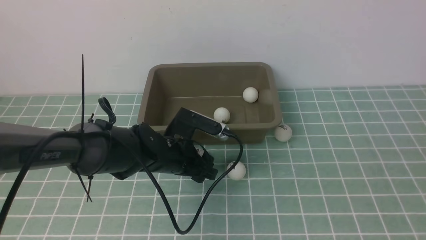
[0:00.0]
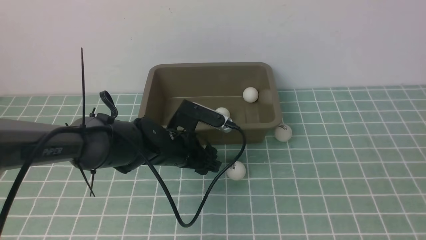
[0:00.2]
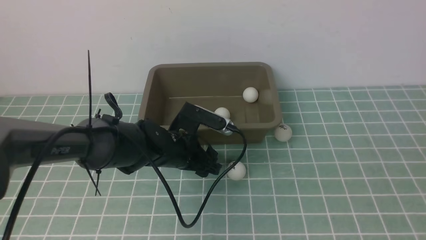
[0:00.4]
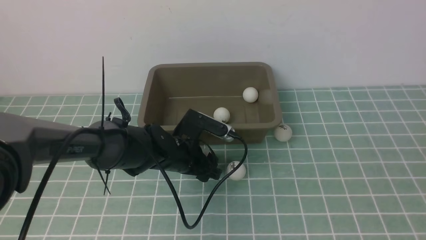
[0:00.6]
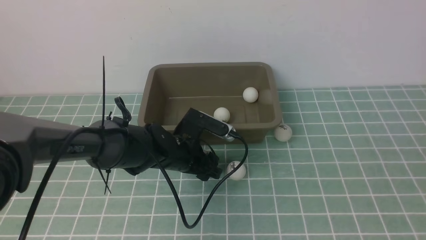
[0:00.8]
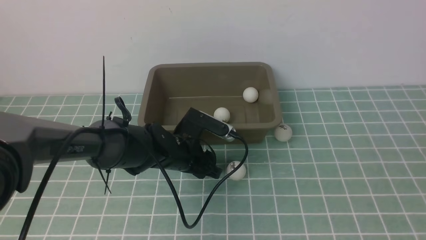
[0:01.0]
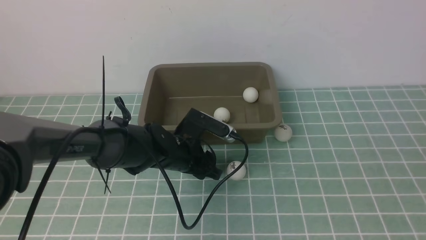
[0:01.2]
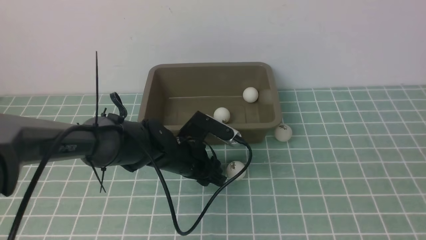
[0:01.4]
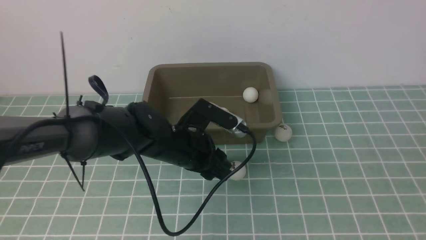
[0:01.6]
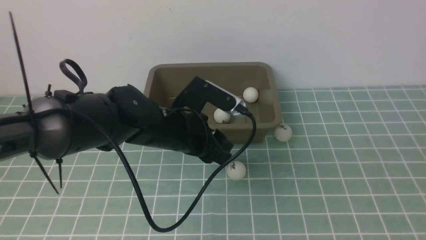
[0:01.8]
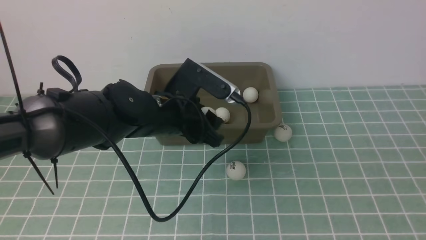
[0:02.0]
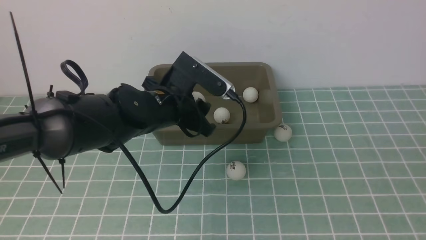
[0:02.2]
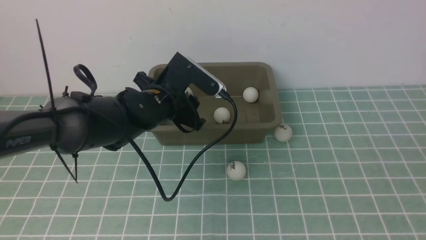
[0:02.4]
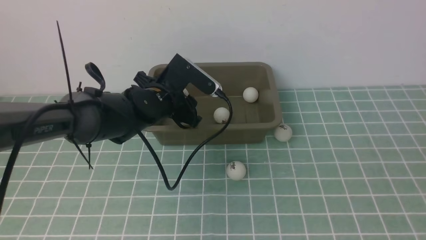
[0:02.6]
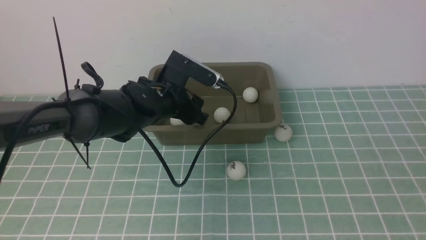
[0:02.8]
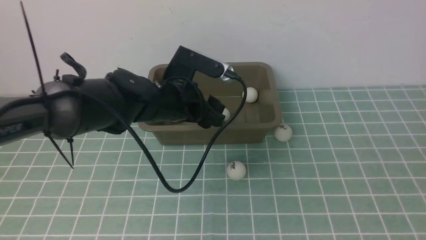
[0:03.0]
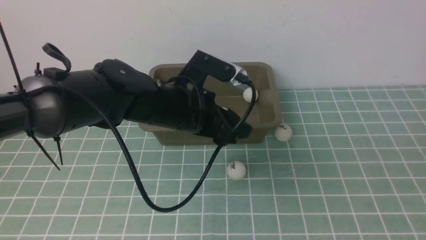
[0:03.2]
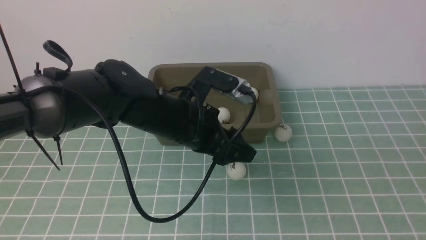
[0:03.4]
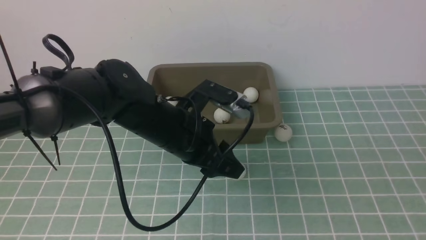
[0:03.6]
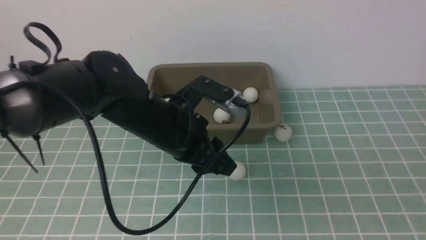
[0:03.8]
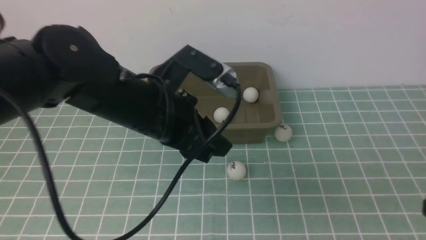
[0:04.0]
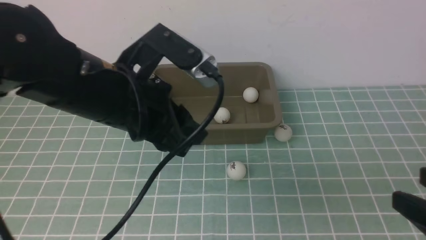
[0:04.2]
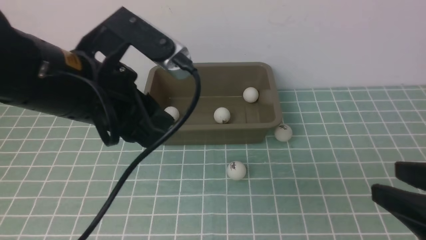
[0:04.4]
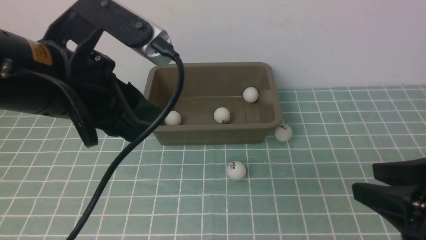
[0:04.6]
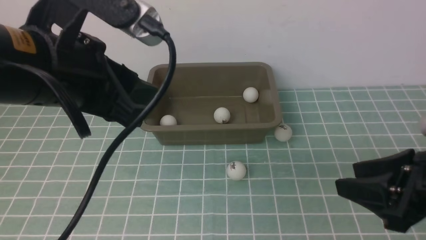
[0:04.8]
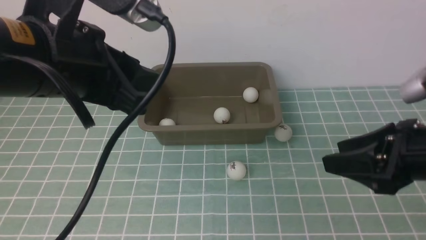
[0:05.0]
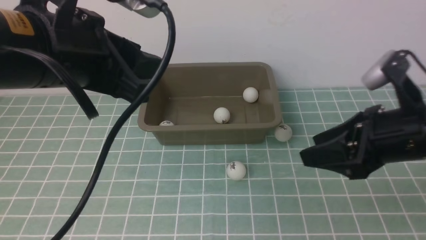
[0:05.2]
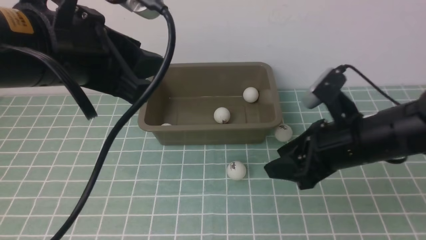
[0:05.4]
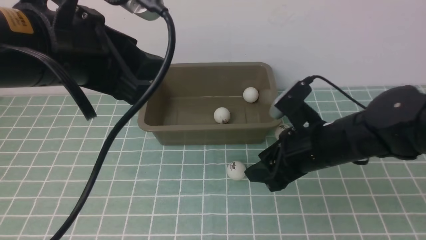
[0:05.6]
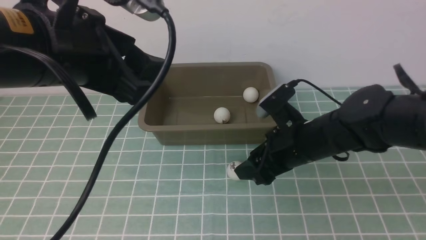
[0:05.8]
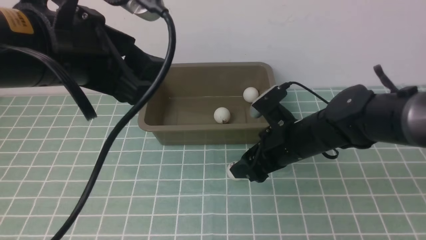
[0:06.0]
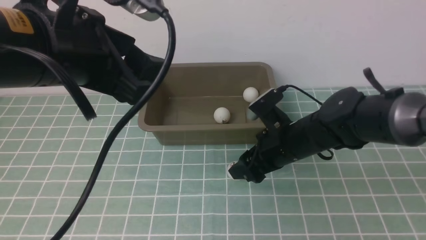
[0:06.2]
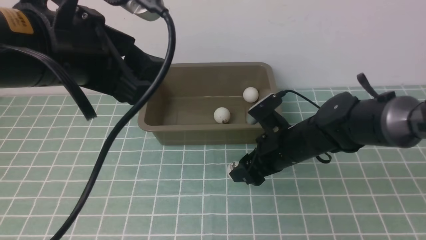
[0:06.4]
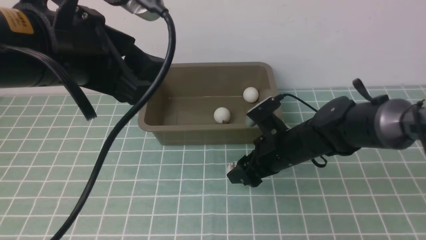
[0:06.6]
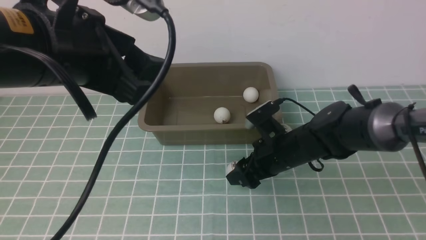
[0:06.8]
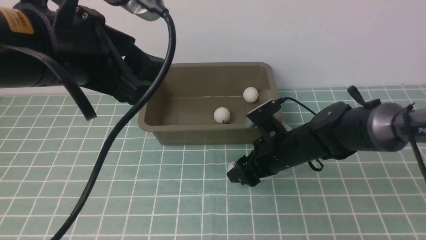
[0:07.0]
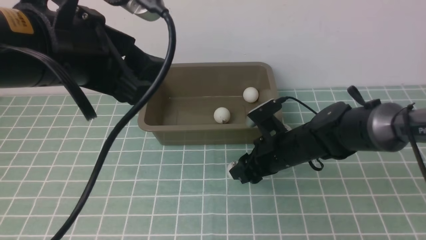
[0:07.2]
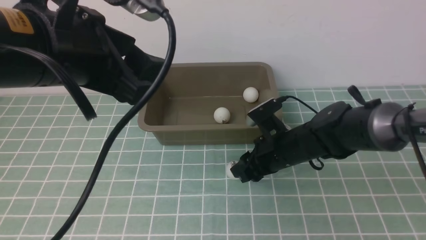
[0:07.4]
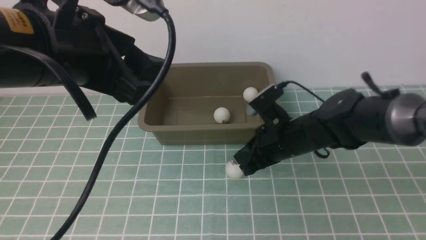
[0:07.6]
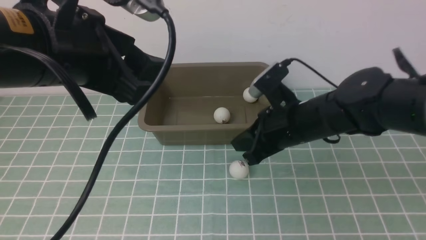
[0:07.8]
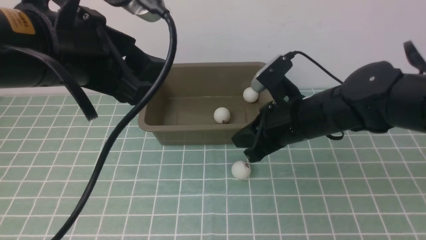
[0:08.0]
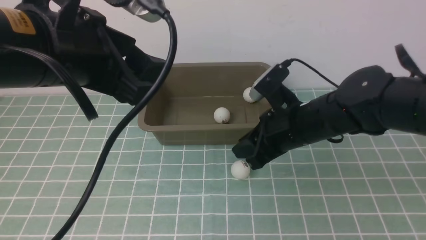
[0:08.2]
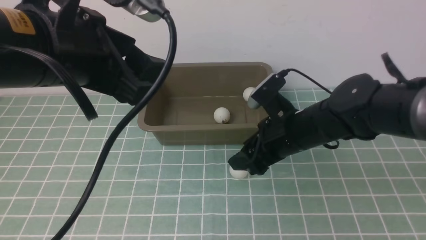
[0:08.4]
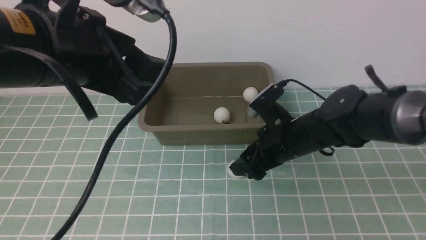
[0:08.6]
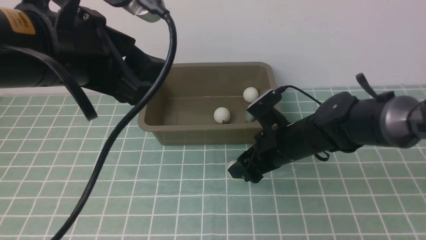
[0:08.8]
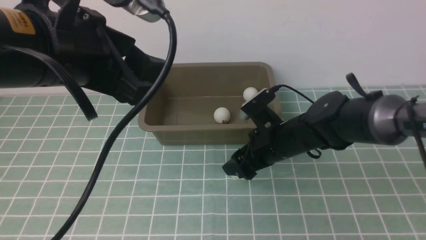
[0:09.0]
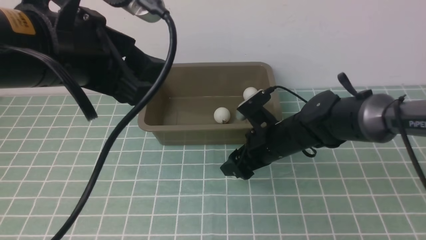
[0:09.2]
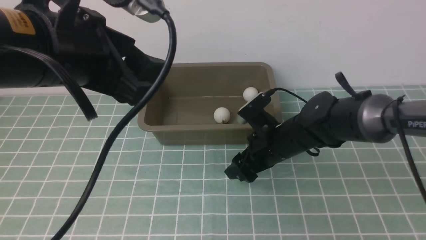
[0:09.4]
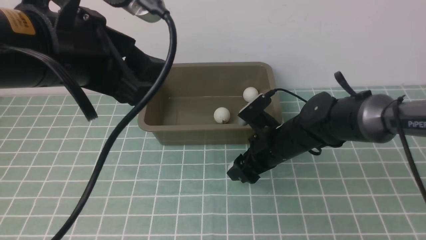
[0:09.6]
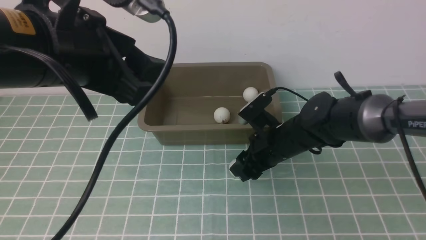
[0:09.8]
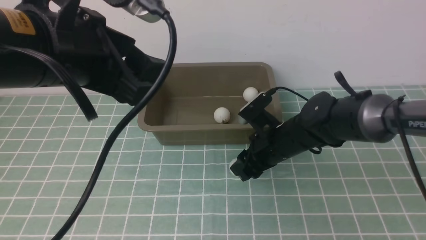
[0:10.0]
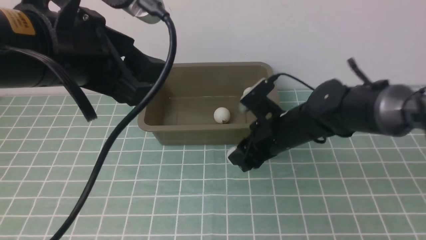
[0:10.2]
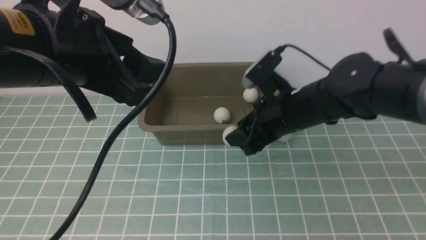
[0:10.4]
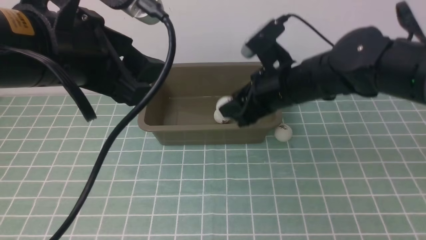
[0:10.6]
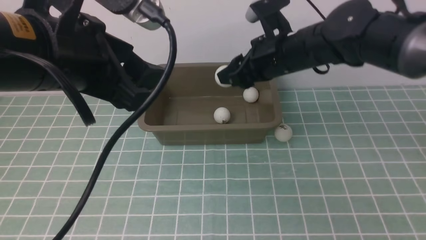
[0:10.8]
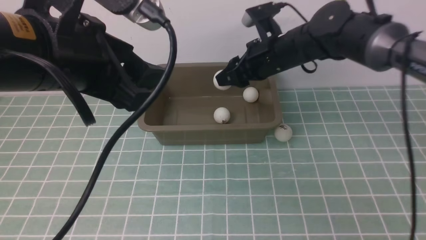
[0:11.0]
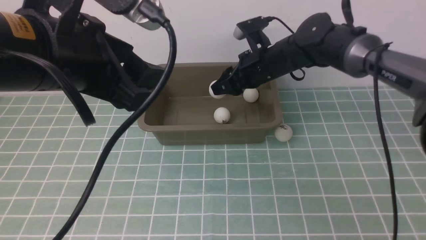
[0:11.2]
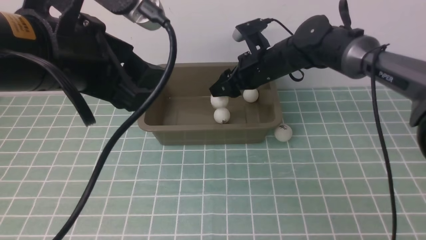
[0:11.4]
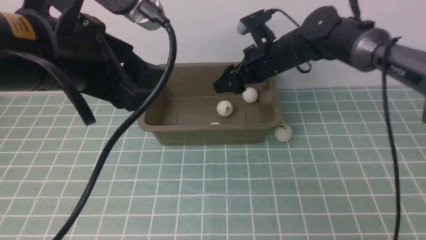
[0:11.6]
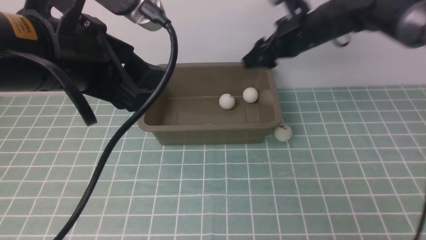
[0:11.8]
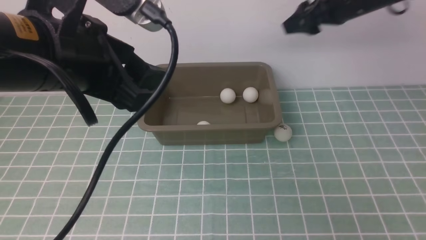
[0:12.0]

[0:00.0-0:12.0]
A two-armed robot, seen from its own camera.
Step, 0:01.8 to 0:02.8: use the left arm to put the table tennis ball into the box.
Step, 0:03.0 to 0:10.2: use the right arm to clamp the table tennis ball closest to it.
Step, 0:10.4 to 0:11.6: use the right arm to put the table tennis ball into the box.
0:00.0 to 0:01.6: The left gripper closes its fingers.
0:01.6 to 0:03.0: The left gripper shifts by about 5 cm.
0:03.0 to 0:04.4: The right gripper goes about 10 cm forward; the left gripper moves upward and backward, some 20 cm, and closes its fingers.
0:04.4 to 0:06.0: The left gripper opens its fingers, while the right gripper travels forward, to the left and downward by some 30 cm, and opens.
0:06.0 to 0:07.6: The right gripper closes up.
0:07.6 to 0:09.0: The right gripper opens.
0:09.0 to 0:10.4: The right gripper goes approximately 5 cm upward, and closes its fingers.
0:10.4 to 0:12.0: The right gripper goes about 20 cm forward, upward and to the right, and opens.

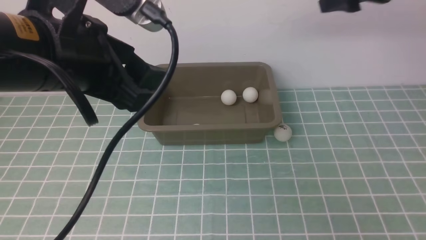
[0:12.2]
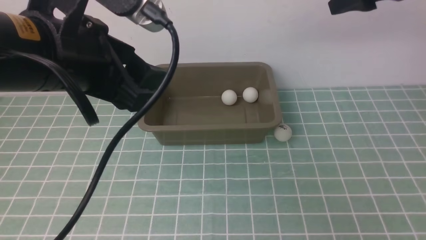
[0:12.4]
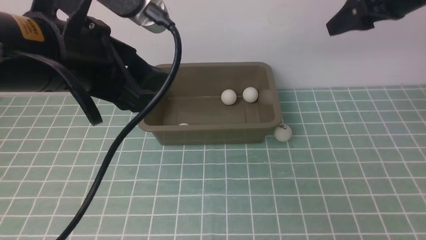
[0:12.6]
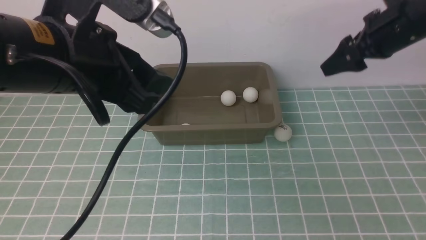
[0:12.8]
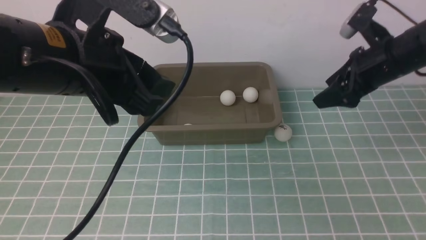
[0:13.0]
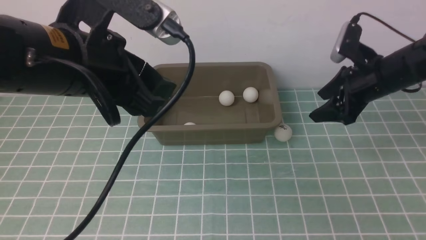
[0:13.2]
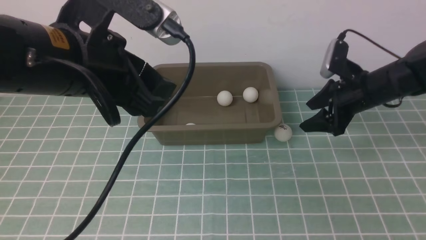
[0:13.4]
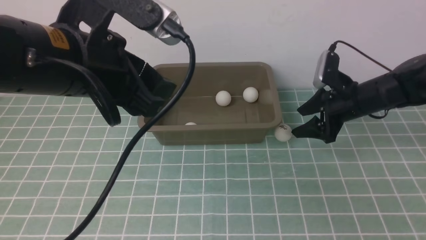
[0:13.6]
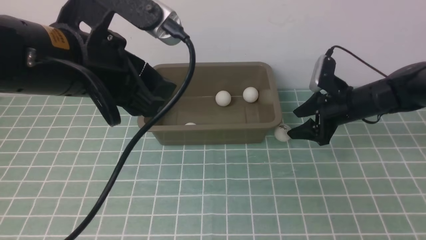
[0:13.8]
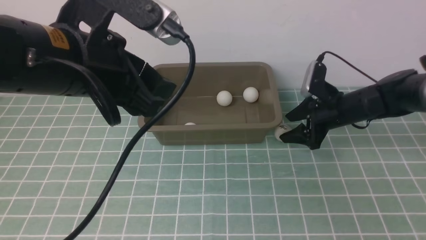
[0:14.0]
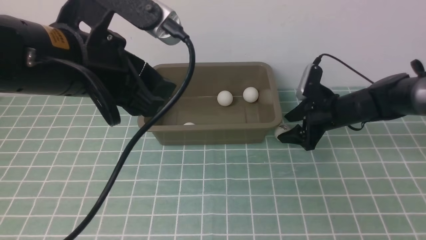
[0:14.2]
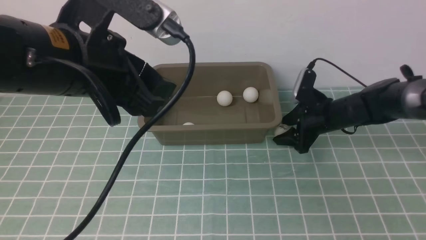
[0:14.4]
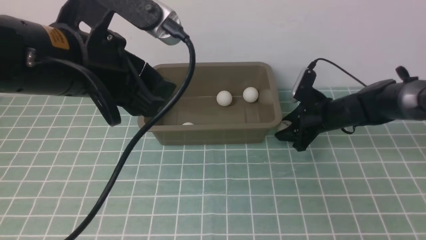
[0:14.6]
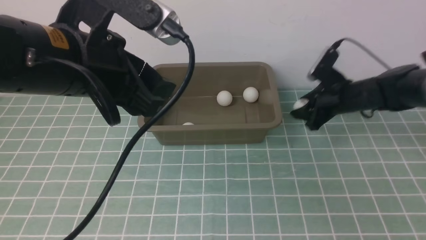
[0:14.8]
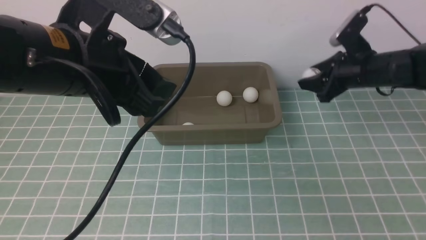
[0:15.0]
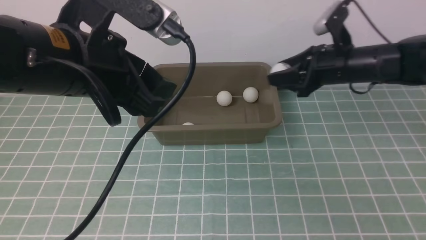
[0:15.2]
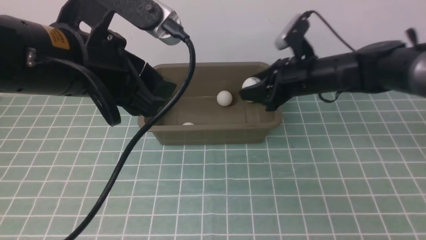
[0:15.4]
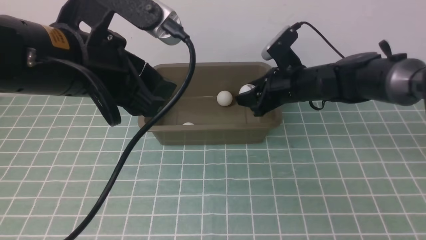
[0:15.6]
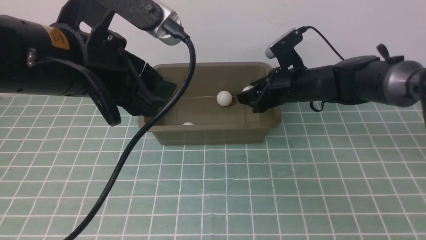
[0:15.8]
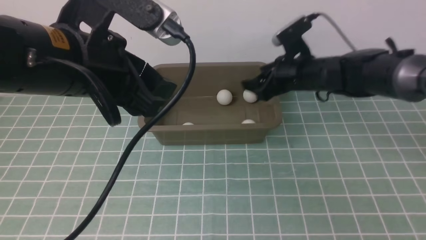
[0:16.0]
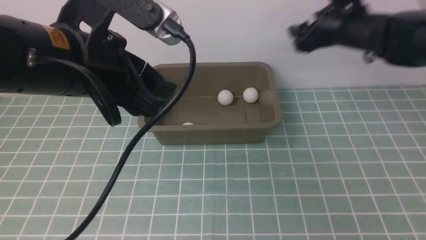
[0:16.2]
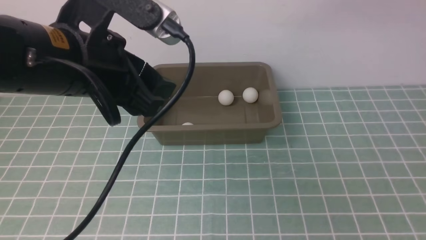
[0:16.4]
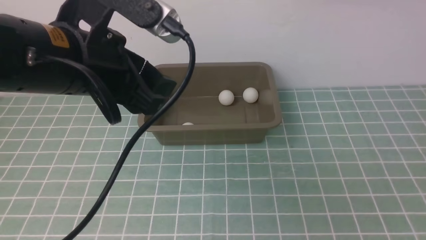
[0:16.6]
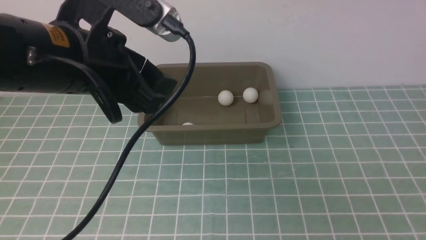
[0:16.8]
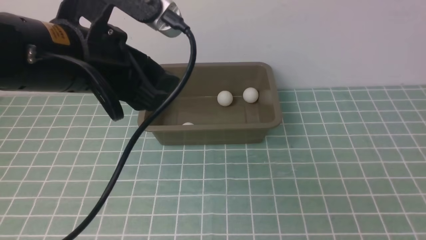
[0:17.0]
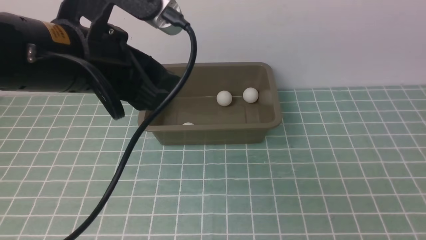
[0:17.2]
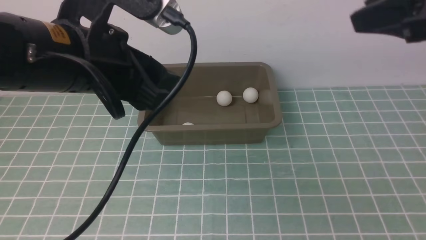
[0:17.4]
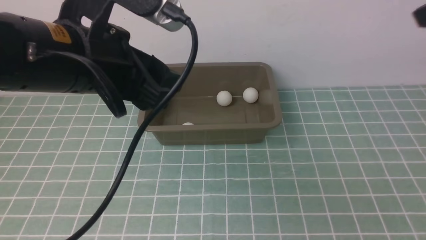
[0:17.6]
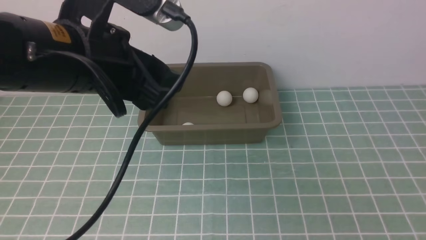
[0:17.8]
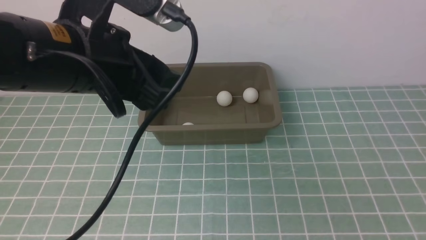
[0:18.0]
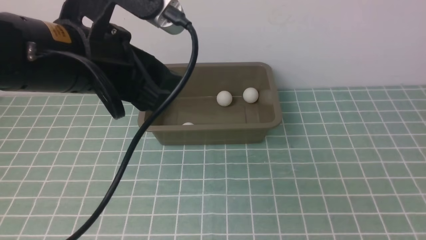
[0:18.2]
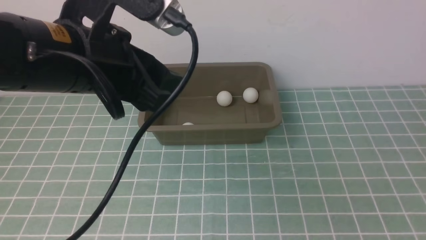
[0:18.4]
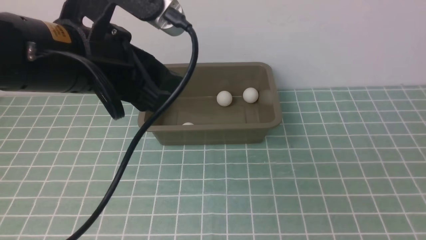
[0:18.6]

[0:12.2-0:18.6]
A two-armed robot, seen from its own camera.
Step, 0:12.2 to 0:14.8: use the right arm to clamp the table tennis ball closest to it.
Step, 0:15.0 to 0:16.0: use the right arm to put the table tennis ball into the box.
0:12.2 to 0:13.8: The right gripper is displaced downward by approximately 20 cm.
0:13.8 to 0:15.4: The right gripper heads upward and to the left, covering roughly 10 cm, and closes its fingers.
0:15.4 to 0:17.0: The right gripper heads upward and backward, covering some 30 cm, and opens, then closes again.
0:17.0 to 0:18.6: The right gripper goes approximately 25 cm downward and backward.
